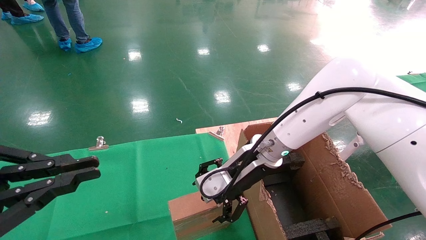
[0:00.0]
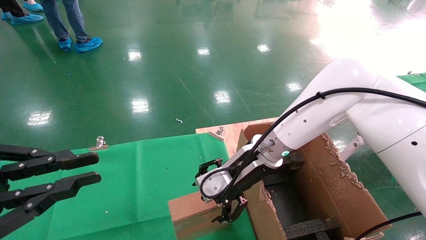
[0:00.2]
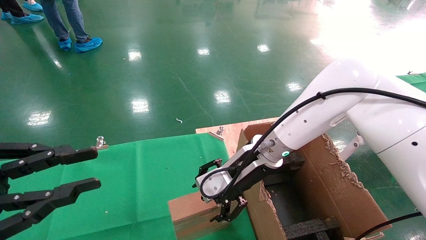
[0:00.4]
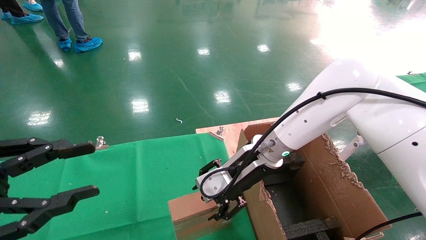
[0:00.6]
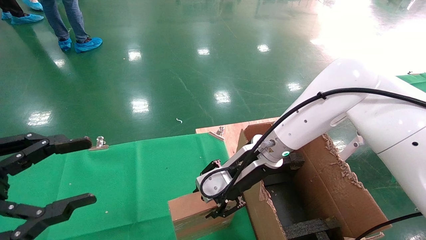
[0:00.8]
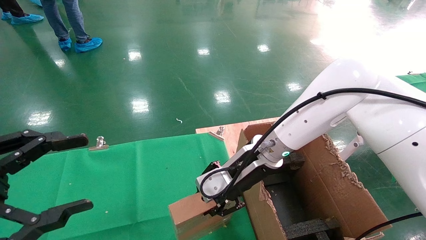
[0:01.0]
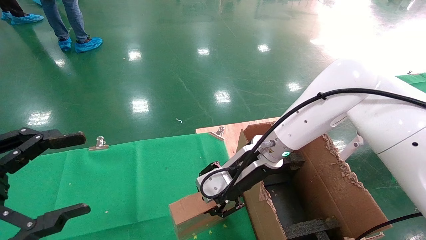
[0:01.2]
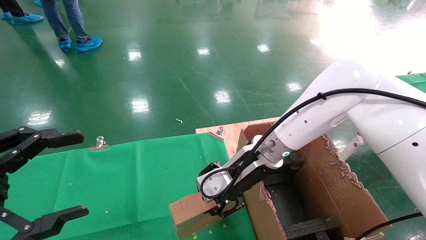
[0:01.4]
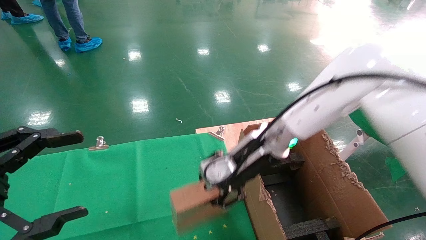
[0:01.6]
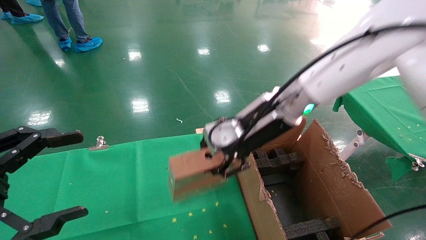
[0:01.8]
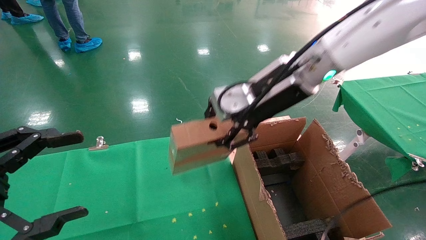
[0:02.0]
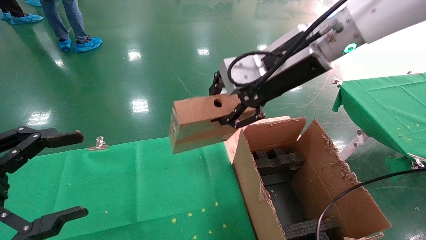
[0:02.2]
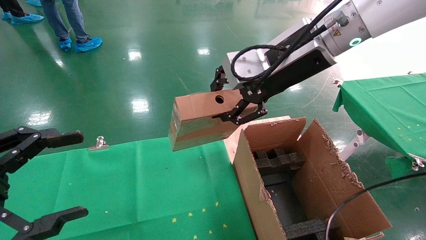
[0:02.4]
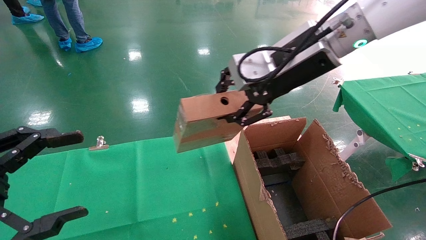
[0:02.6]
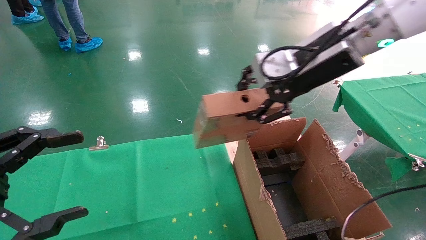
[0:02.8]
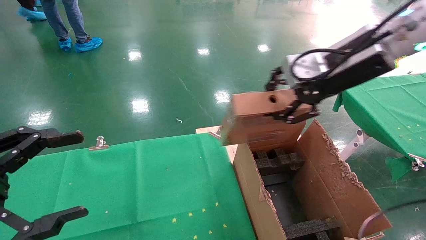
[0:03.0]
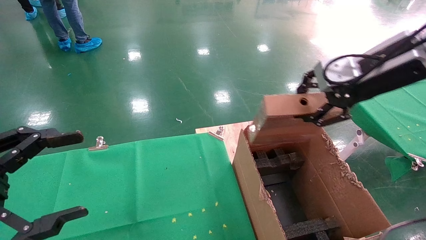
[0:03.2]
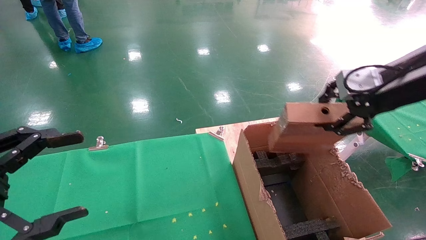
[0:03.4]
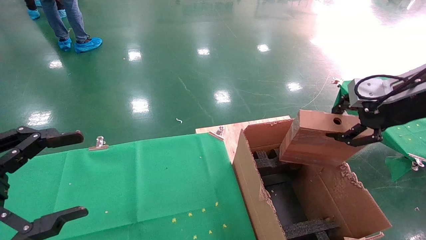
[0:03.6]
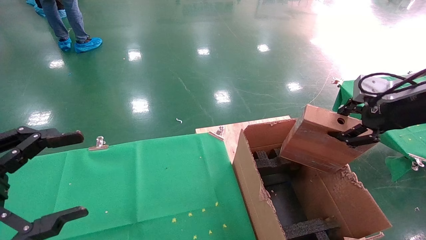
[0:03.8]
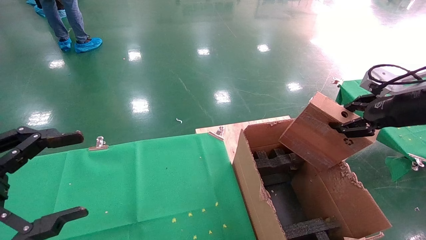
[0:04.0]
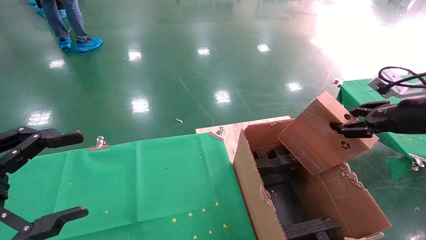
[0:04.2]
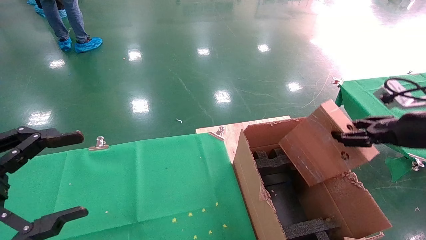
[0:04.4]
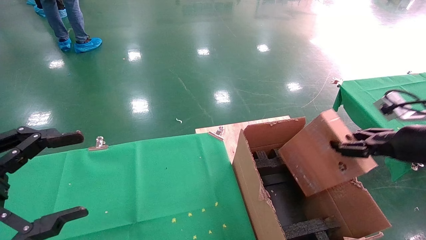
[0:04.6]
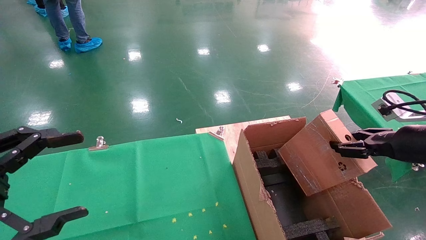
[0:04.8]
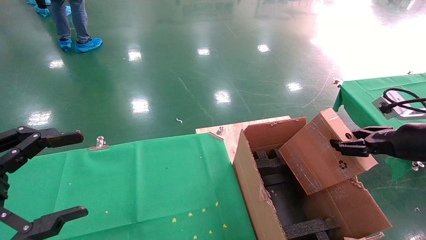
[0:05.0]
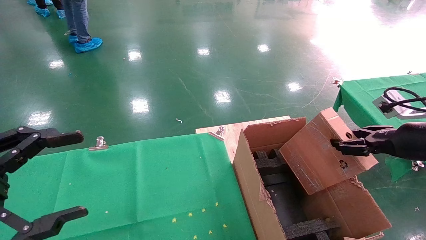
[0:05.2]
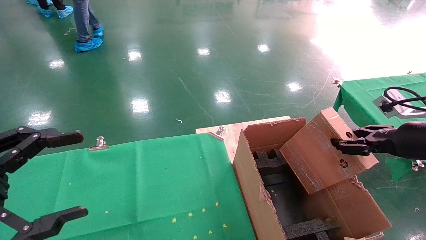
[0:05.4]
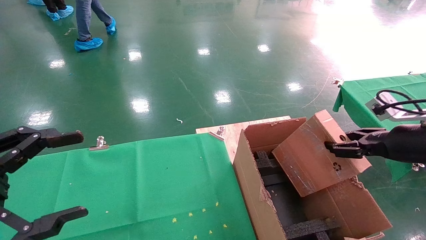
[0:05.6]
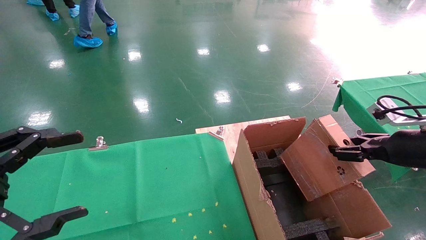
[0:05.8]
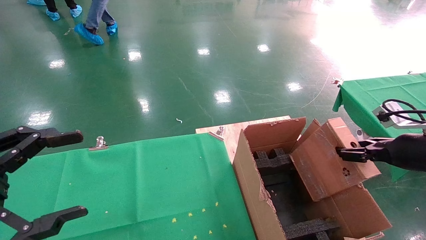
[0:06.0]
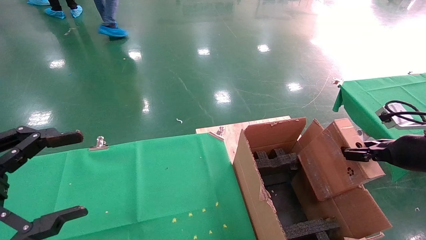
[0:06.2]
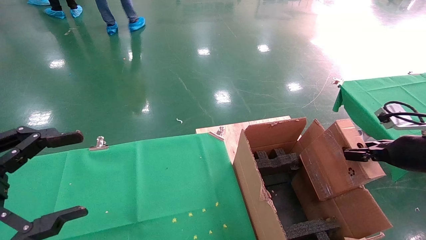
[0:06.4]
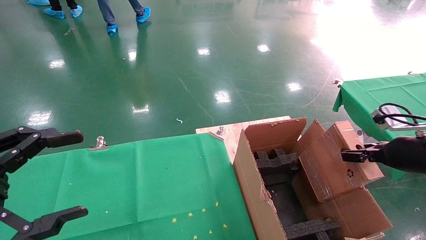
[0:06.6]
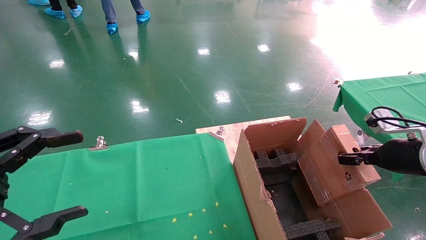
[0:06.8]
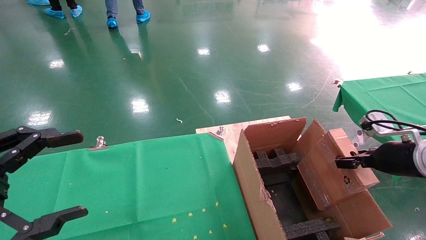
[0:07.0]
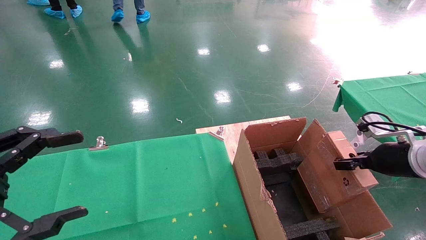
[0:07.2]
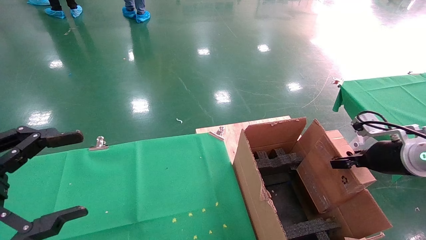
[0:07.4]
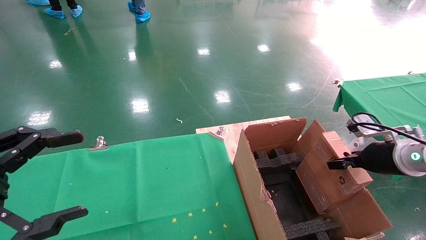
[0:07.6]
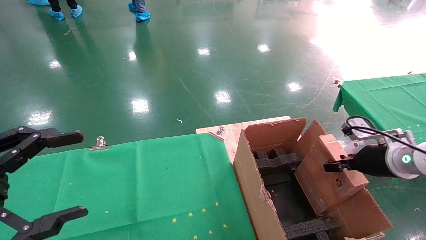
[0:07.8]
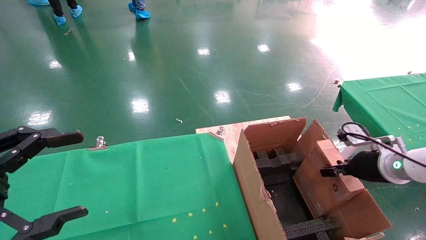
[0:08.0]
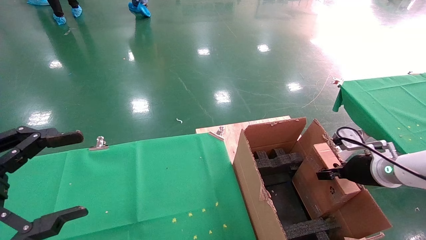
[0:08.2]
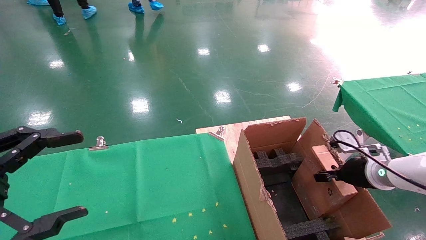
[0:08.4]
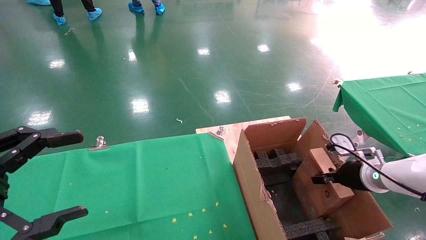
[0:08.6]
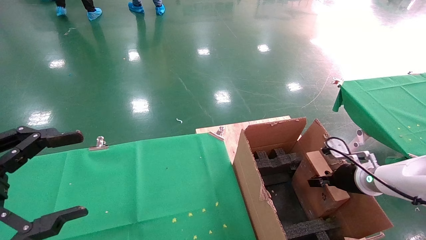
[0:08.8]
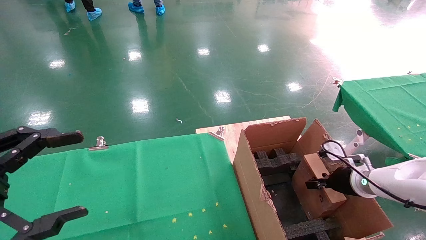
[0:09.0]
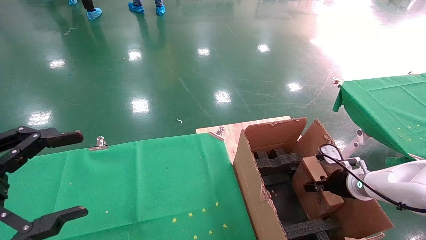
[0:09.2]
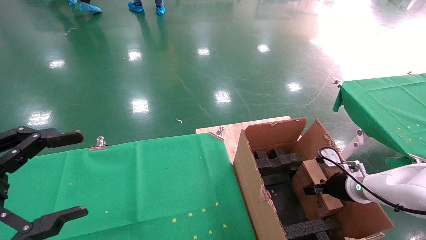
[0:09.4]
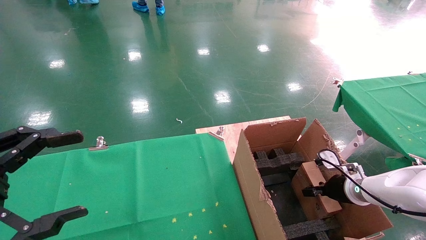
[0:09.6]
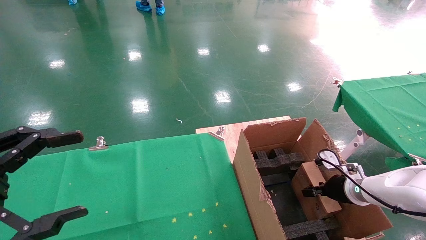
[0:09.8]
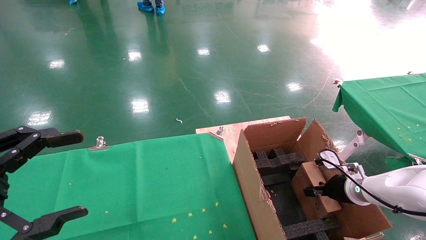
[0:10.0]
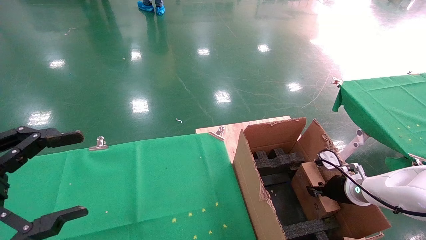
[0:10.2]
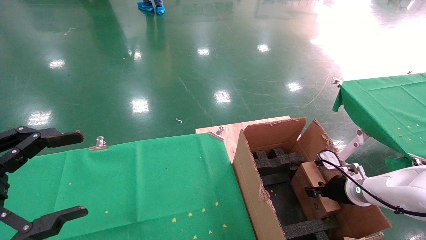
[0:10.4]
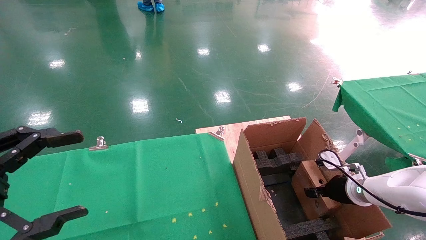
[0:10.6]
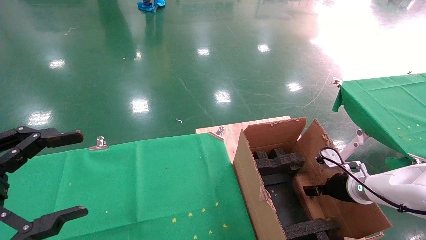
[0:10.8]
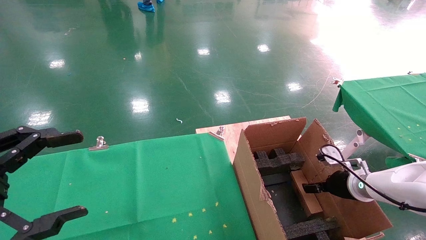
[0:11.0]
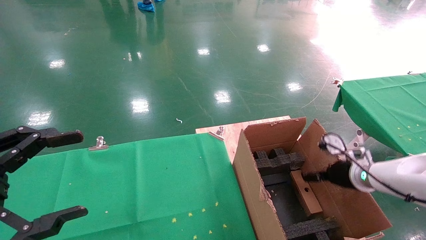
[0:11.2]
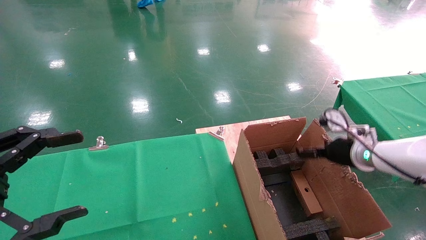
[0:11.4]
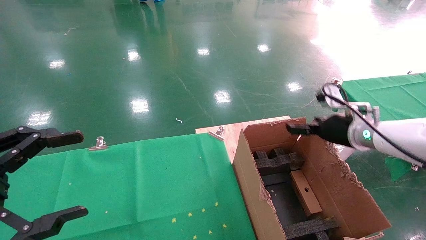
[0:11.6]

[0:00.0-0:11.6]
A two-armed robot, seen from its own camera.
Task of the whole recording: using a robotic arm to pick up a cardboard box and palace it the carton.
Step, 0:01.4 to 0:11.0: Place the mouse and the power cord paper box into the container.
0:00.0 to 0:01.4: The left gripper opens, while the right gripper closes.
0:01.4 to 0:02.8: The right gripper travels upward and to the right by roughly 20 cm.
0:02.8 to 0:04.4: The right gripper shifts about 25 cm to the right and downward.
0:04.4 to 0:05.8: The grippers make only small movements.
0:05.8 to 0:07.2: The right gripper moves approximately 5 cm.
0:07.2 to 0:08.8: The right gripper heads downward and forward, covering about 10 cm.
0:08.8 to 0:10.2: The grippers make only small movements.
0:10.2 to 0:11.6: The right gripper goes roughly 15 cm upward, and opens up.

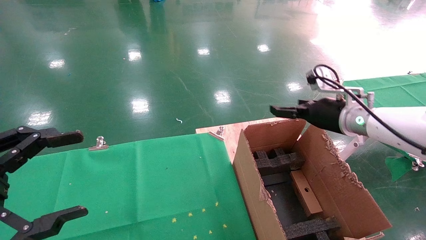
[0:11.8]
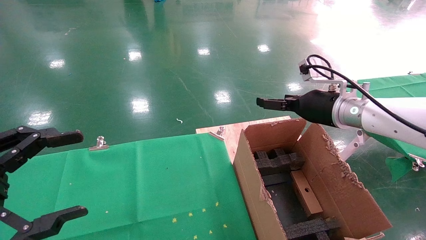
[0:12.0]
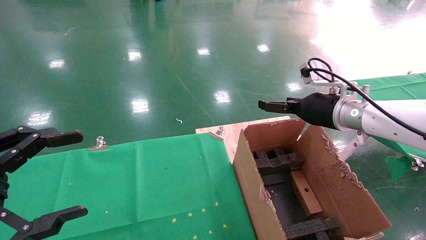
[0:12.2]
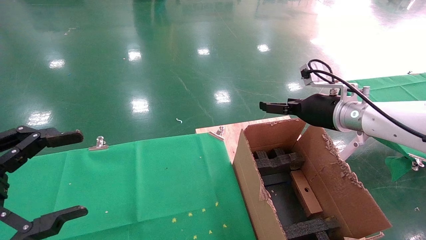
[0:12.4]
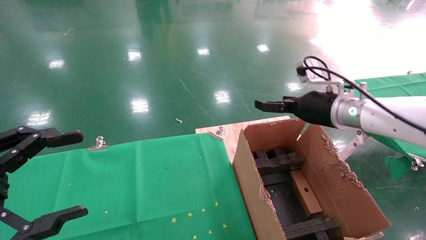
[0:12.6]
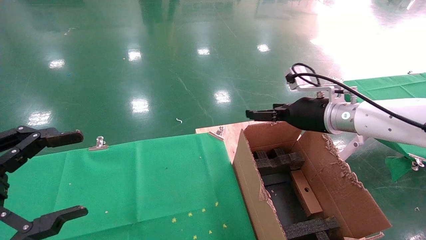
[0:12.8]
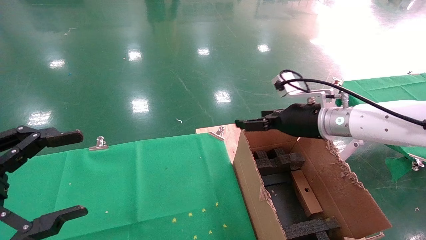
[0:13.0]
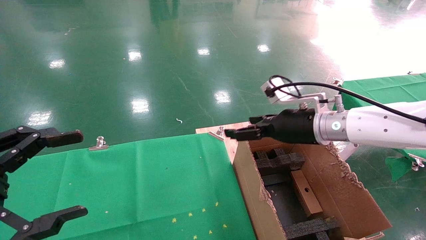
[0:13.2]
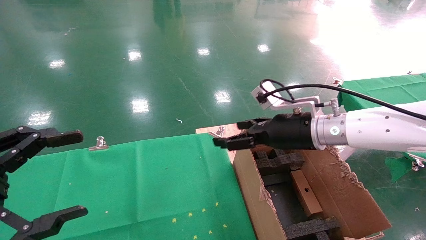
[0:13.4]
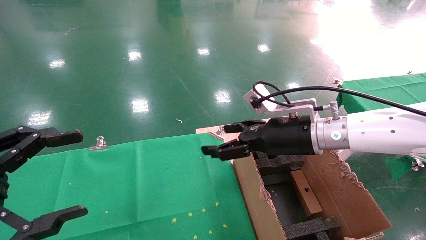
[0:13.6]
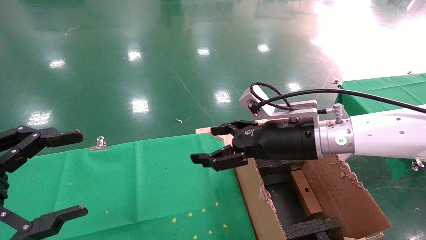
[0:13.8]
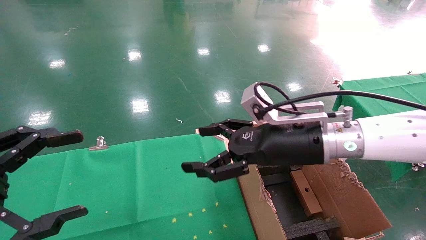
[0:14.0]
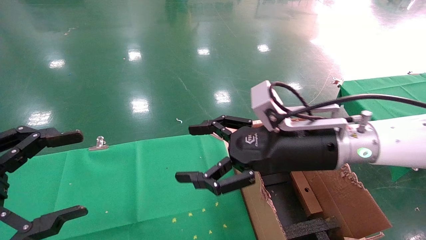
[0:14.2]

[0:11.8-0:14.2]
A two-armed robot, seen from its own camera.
Task of the whole recording: using a robotic arm to pick up a cardboard box and palace it the carton.
0:11.8 to 0:13.0: The right gripper is displaced to the left by approximately 5 cm.
0:13.0 to 0:14.2: The right gripper moves backward and to the left, some 10 cm.
